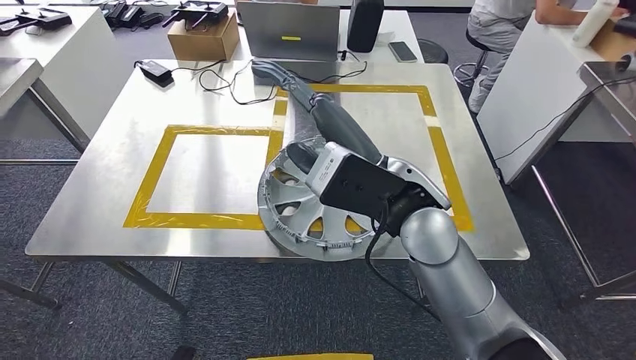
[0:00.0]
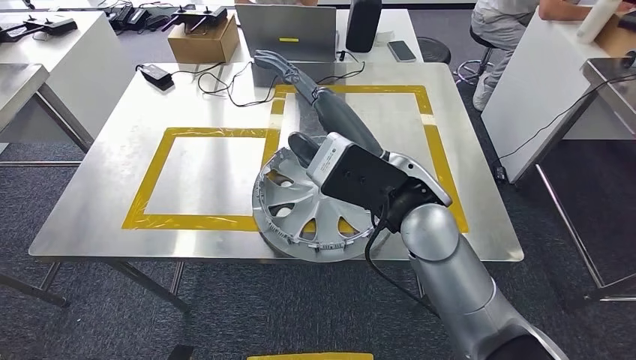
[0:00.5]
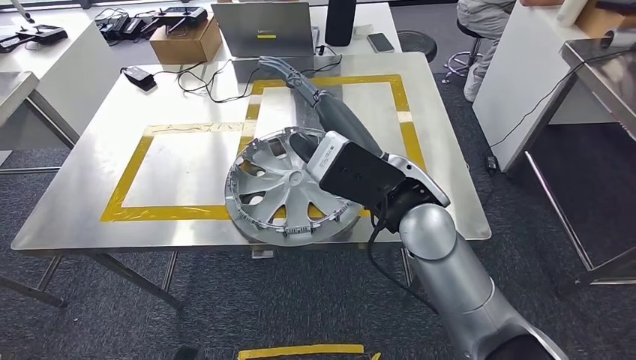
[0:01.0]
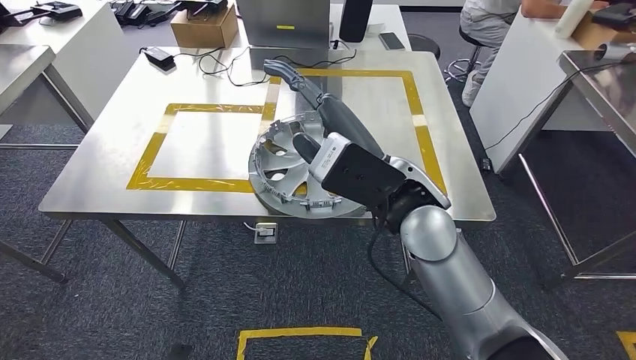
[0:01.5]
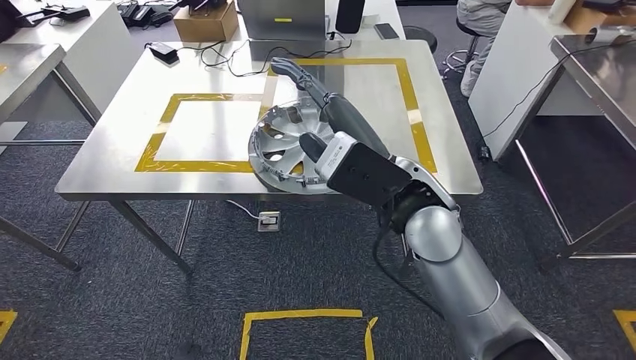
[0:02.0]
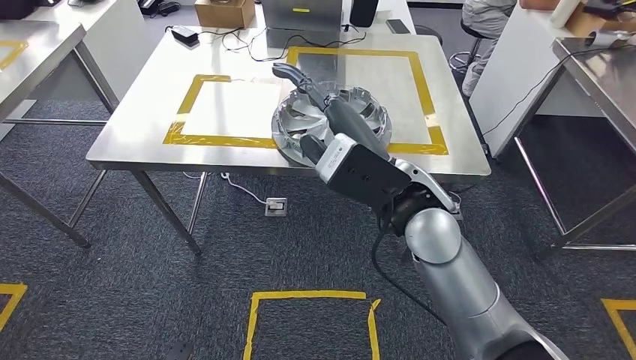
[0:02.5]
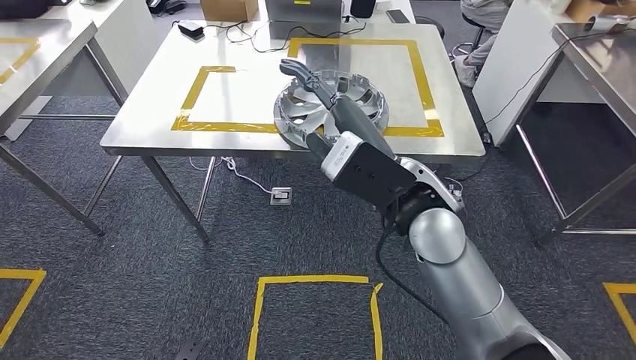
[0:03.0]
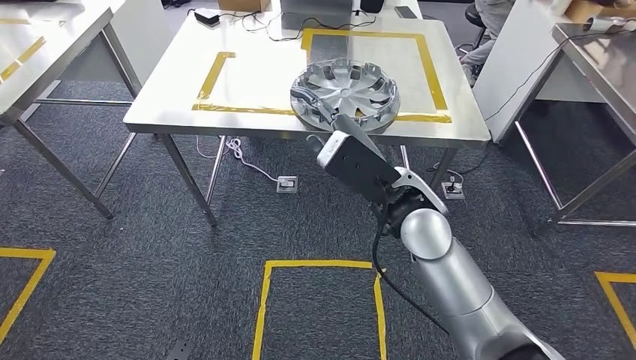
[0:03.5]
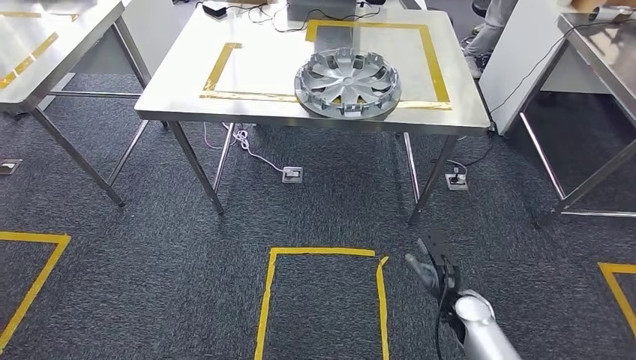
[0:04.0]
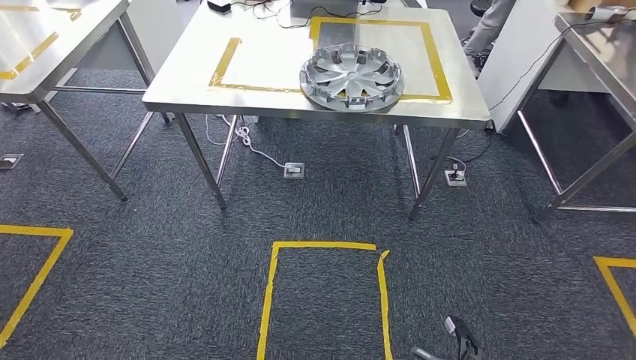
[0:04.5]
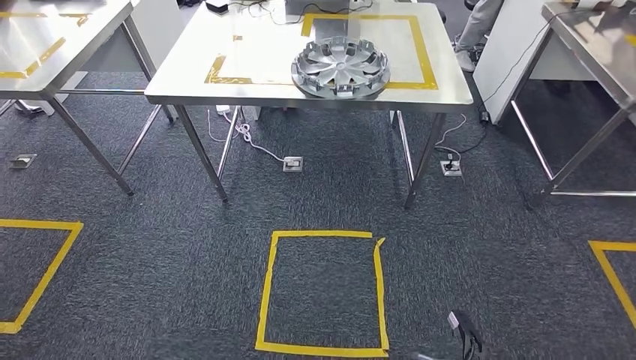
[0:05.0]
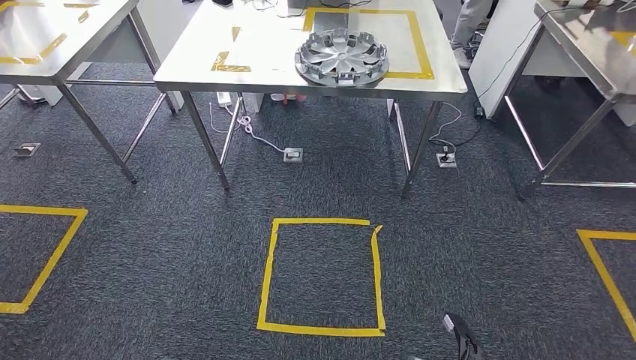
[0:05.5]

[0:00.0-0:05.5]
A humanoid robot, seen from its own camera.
Step, 0:00.0 to 0:05.5: Move to the initial position of the shelf.

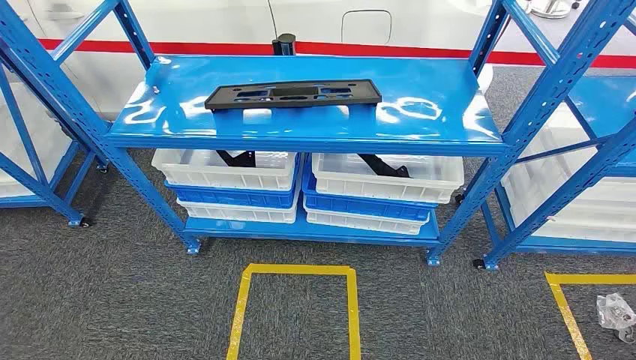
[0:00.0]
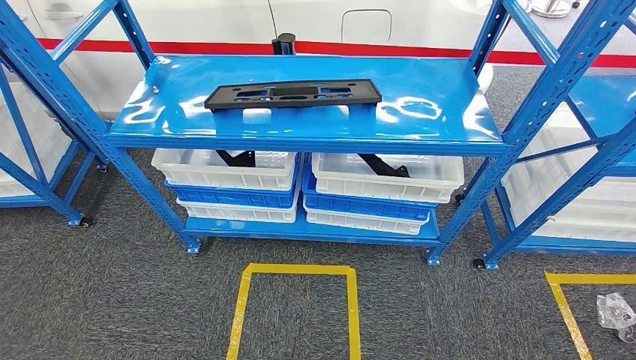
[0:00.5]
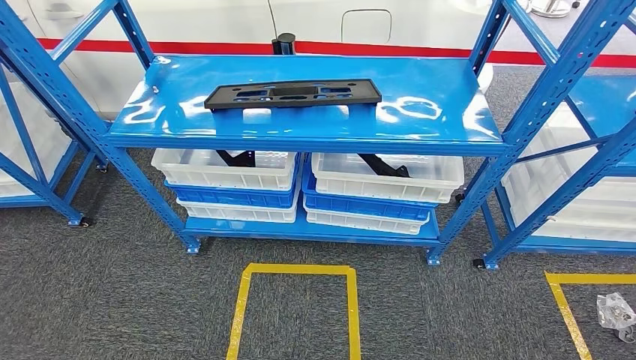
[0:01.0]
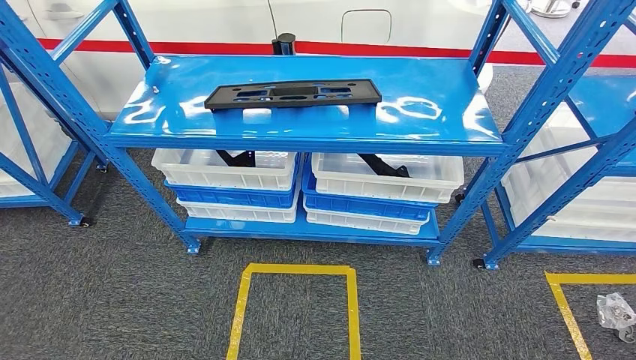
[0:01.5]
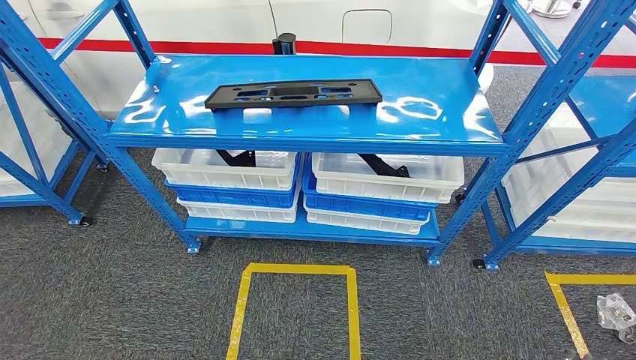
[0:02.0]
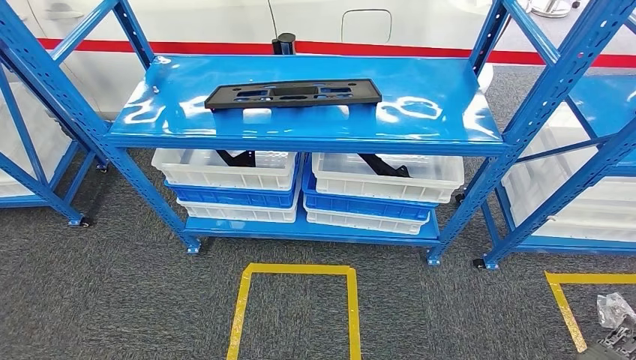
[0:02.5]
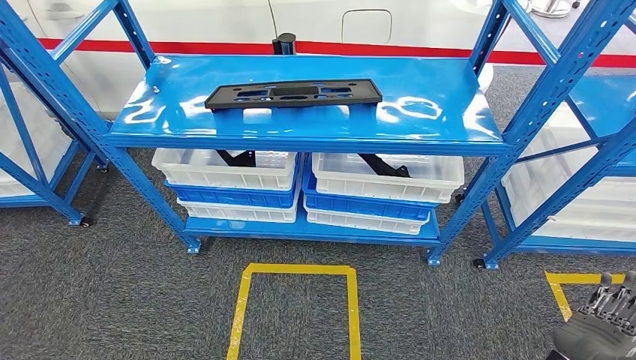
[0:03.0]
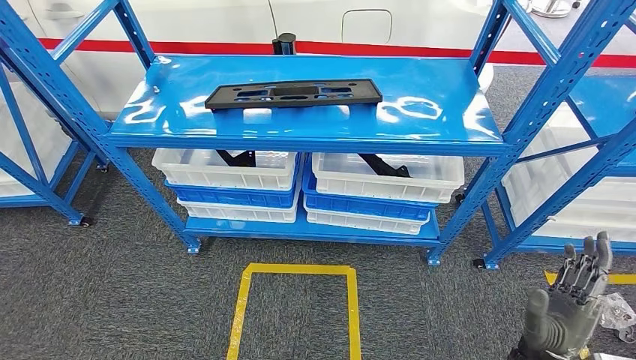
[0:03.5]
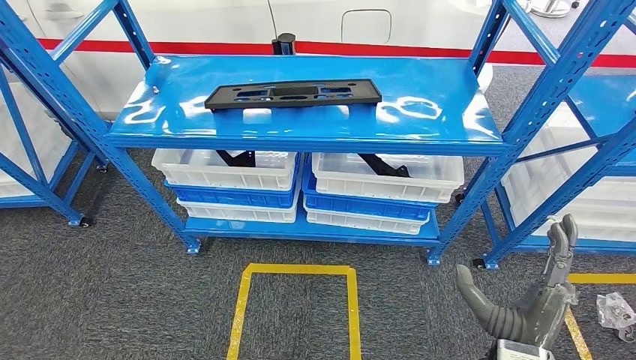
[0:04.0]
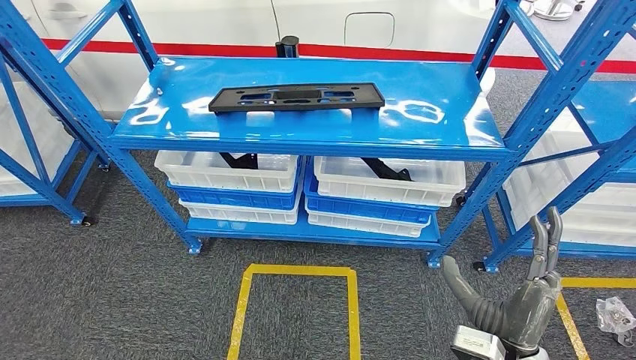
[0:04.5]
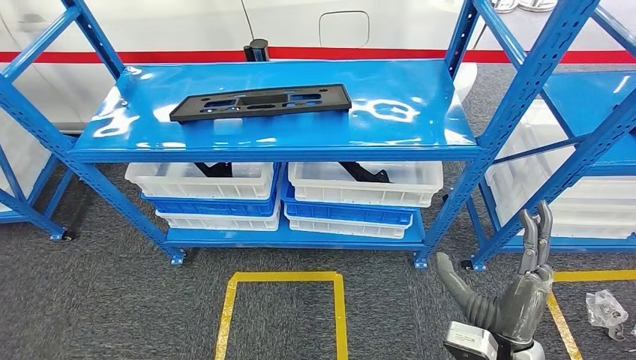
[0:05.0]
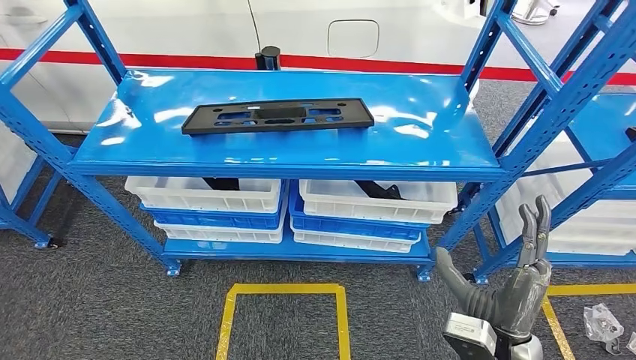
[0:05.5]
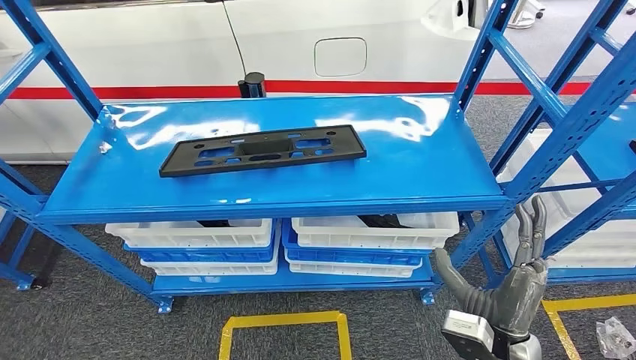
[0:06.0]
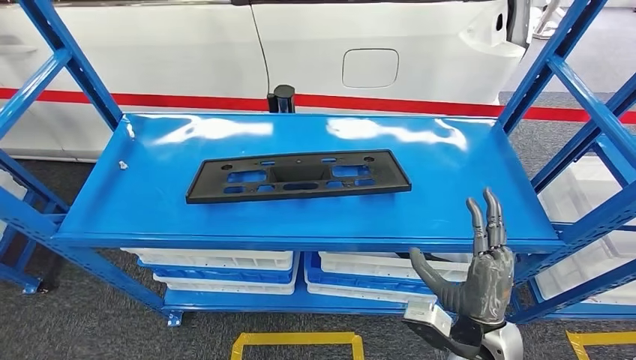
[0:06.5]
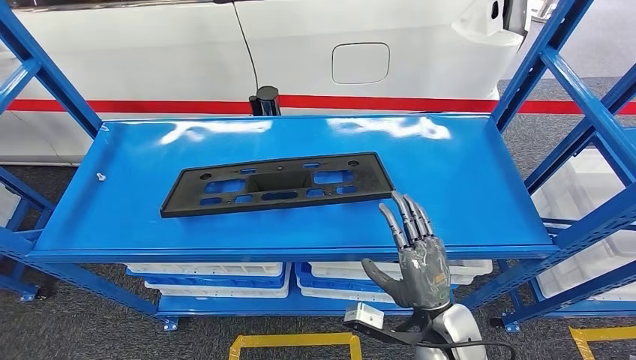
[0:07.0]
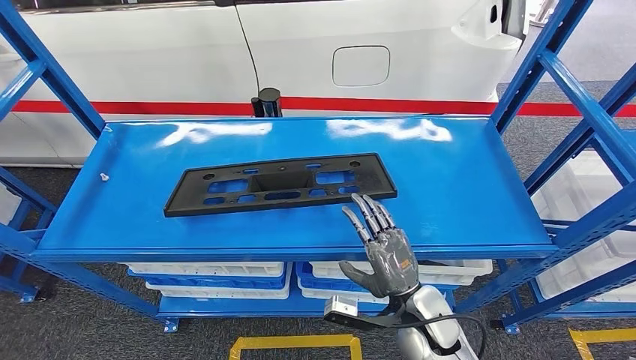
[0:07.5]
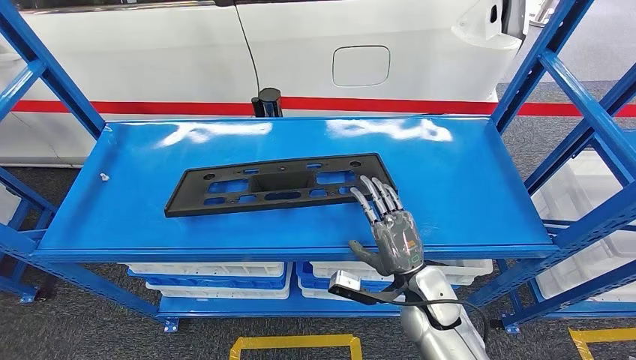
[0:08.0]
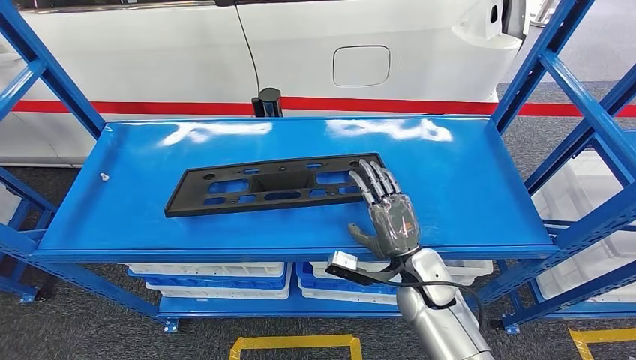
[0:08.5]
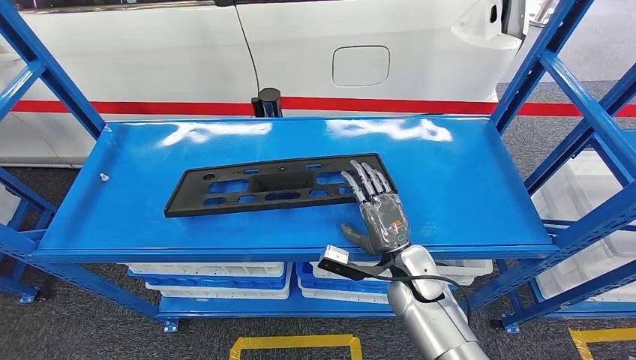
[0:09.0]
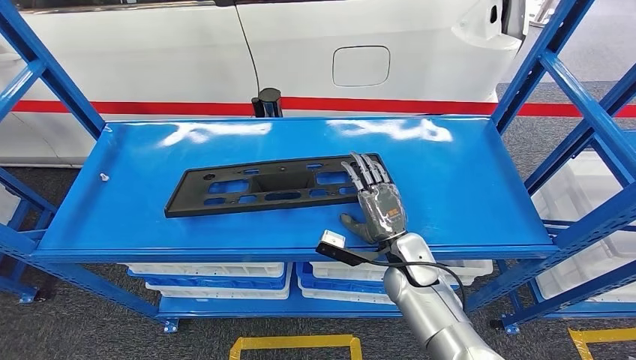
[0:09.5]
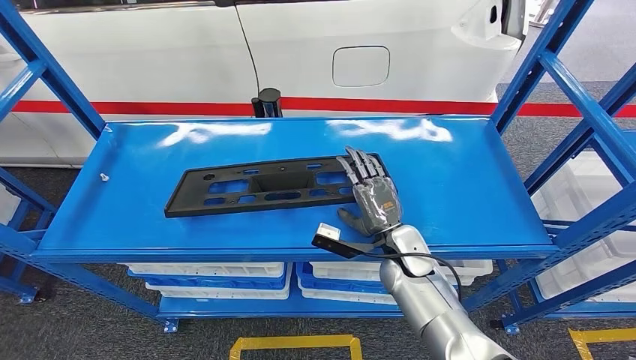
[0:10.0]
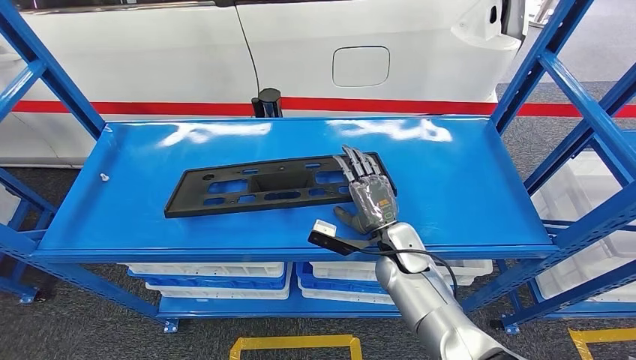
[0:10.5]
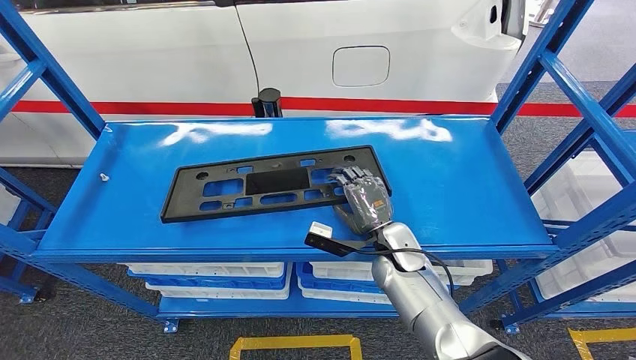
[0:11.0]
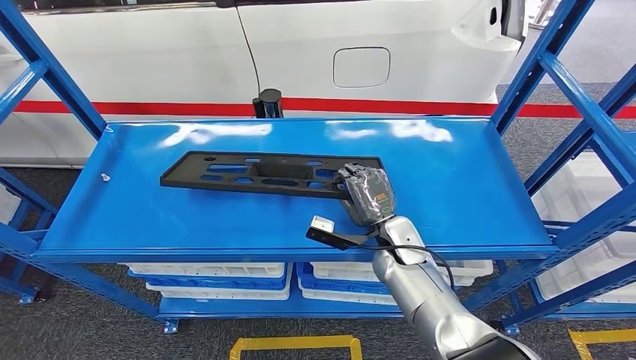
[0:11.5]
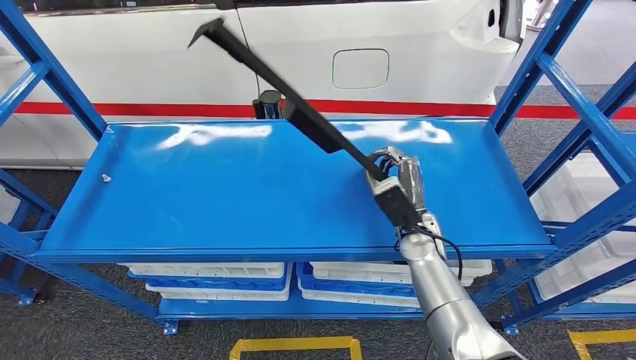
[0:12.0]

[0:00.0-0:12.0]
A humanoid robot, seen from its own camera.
0:02.0 to 0:04.0: The right hand shifts some 25 cm upward and to the left.
0:08.0 to 0:10.0: The right hand heads forward, covering some 10 cm.

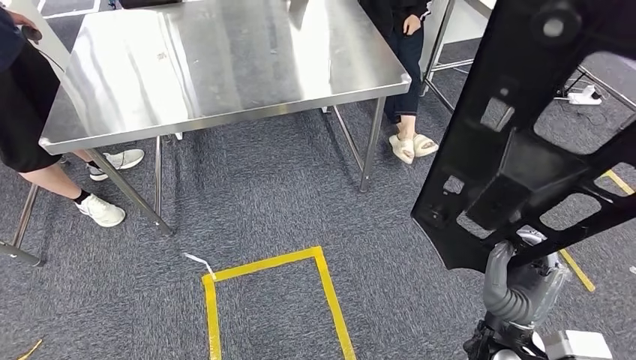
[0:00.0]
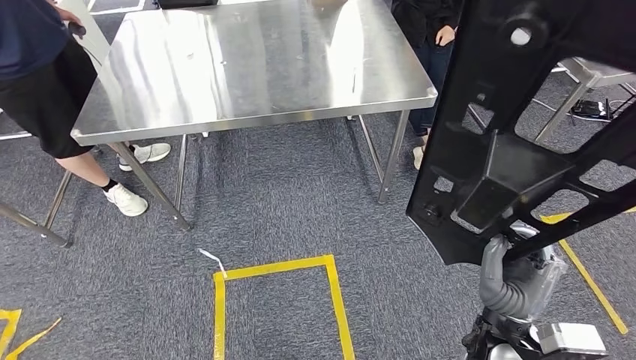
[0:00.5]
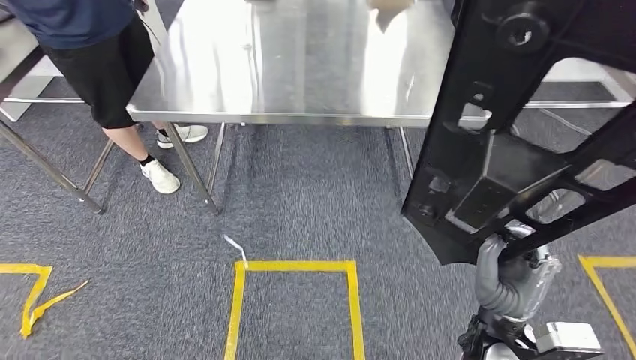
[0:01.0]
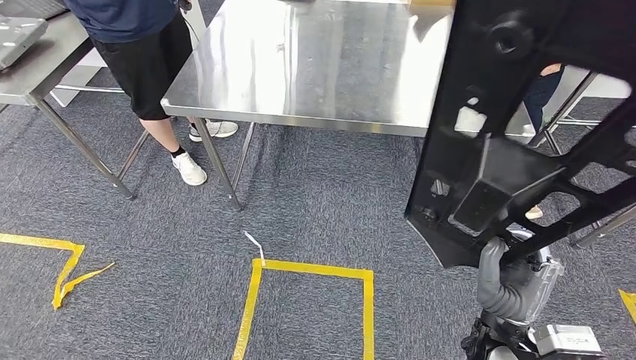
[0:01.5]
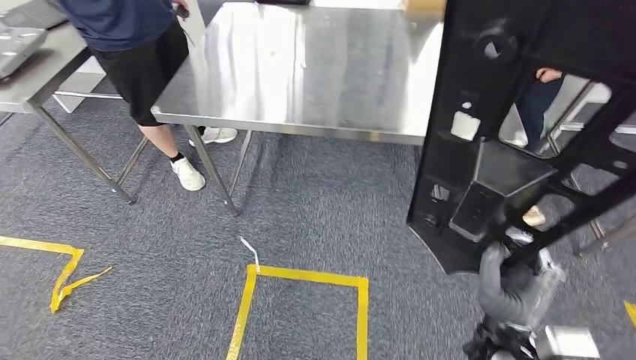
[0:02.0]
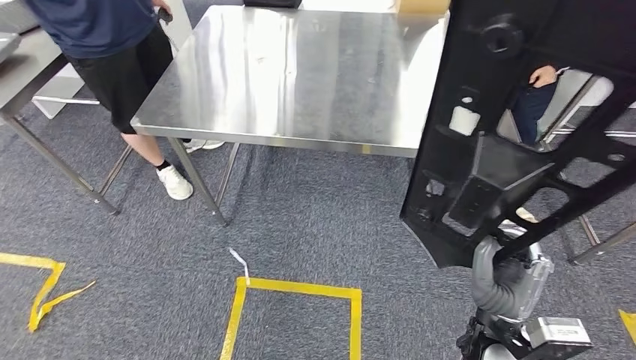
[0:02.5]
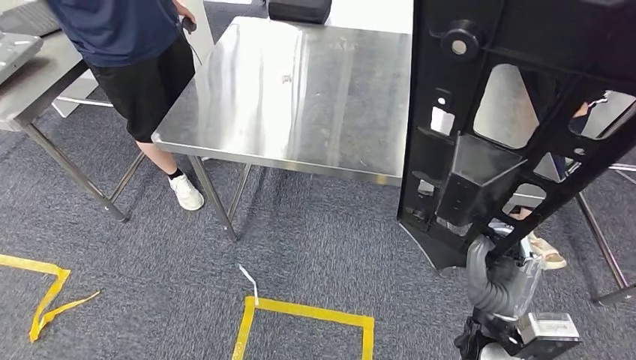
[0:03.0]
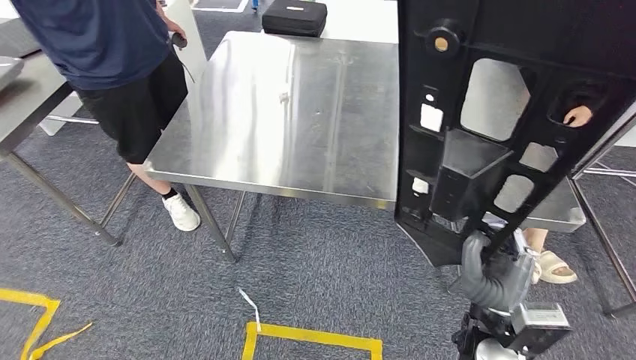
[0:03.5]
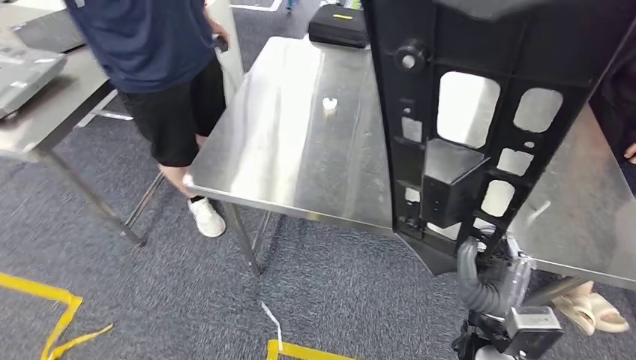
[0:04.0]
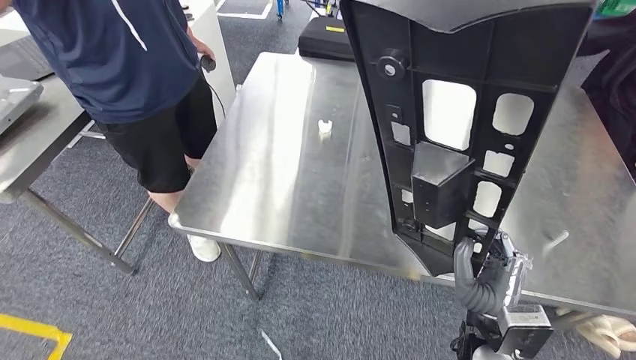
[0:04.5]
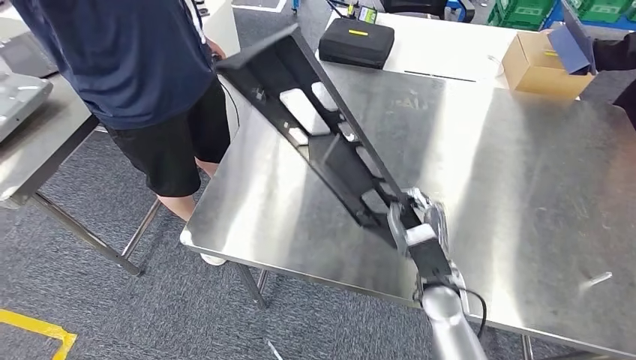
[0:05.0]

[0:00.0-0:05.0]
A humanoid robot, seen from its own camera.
Step, 0:00.0 to 0:04.0: Move the large material to the workbench.
